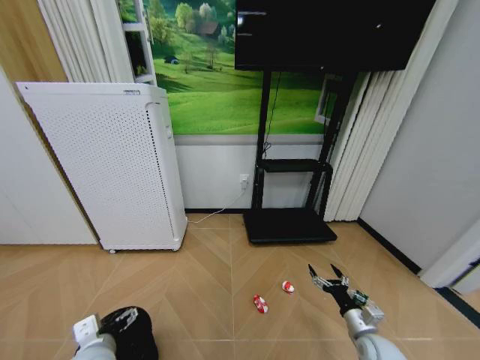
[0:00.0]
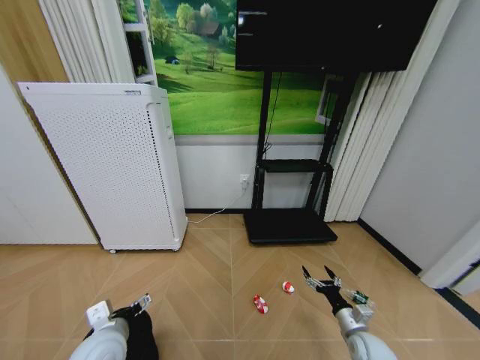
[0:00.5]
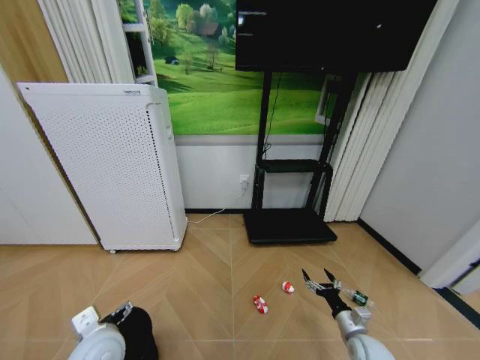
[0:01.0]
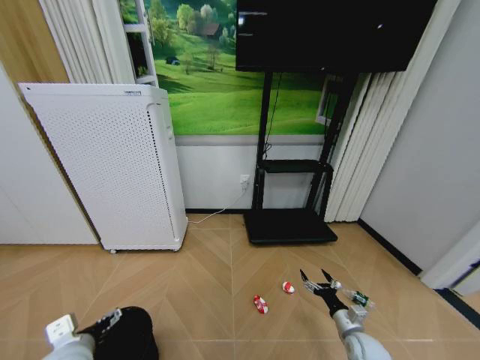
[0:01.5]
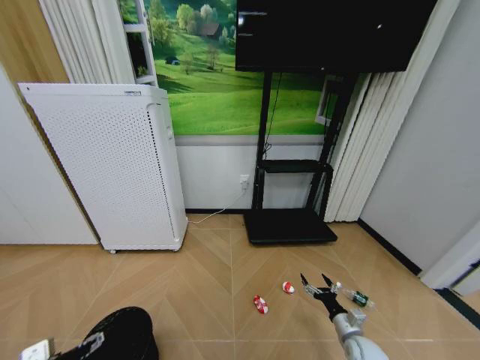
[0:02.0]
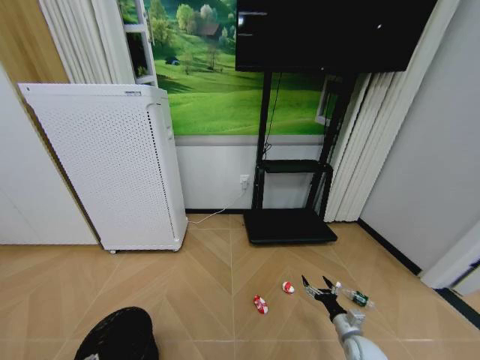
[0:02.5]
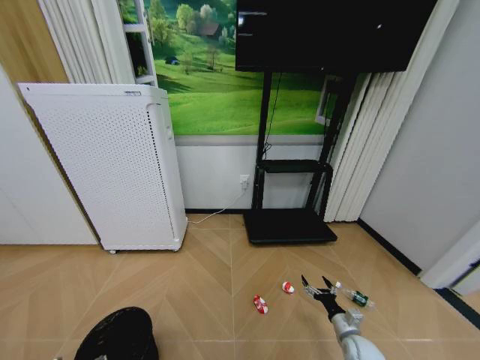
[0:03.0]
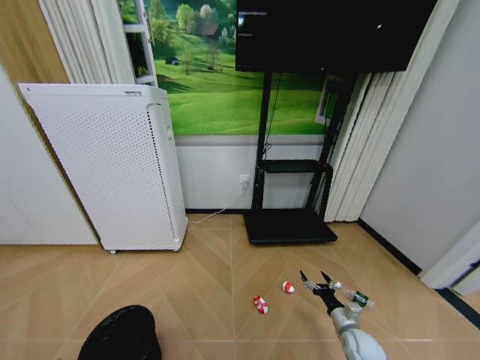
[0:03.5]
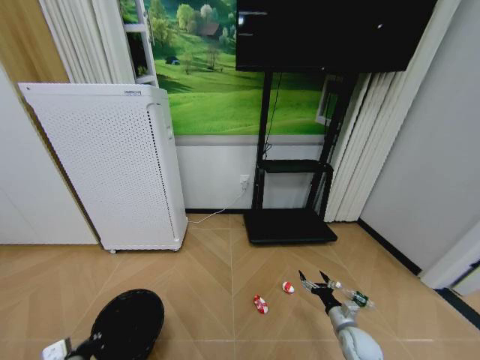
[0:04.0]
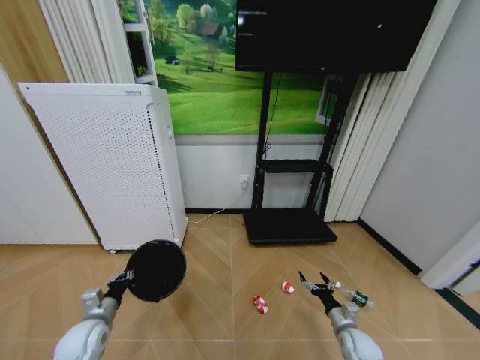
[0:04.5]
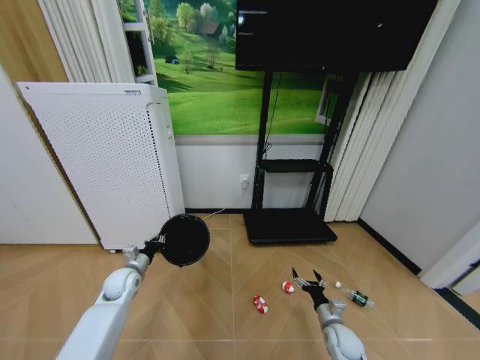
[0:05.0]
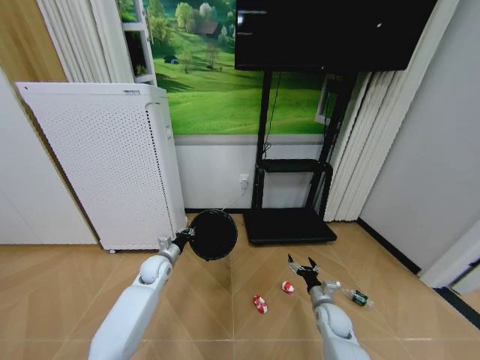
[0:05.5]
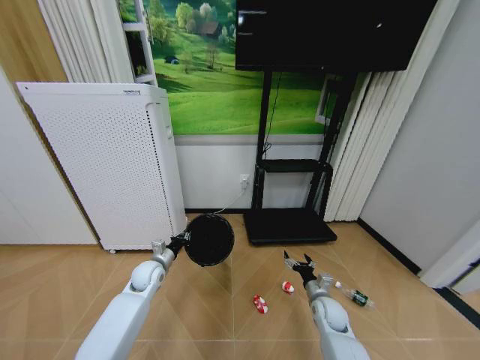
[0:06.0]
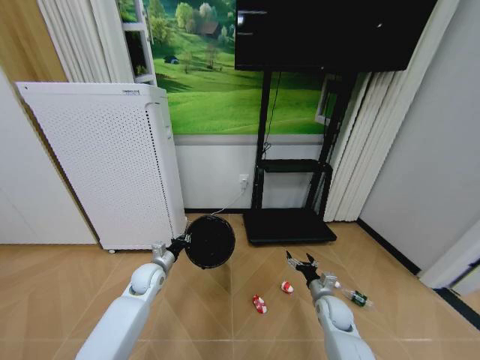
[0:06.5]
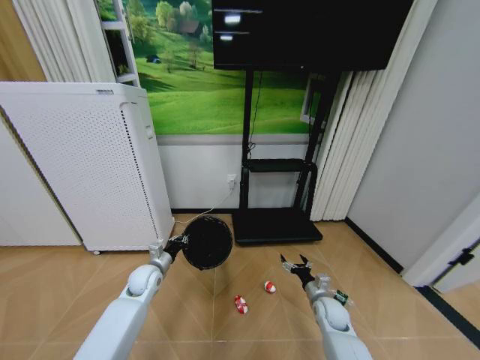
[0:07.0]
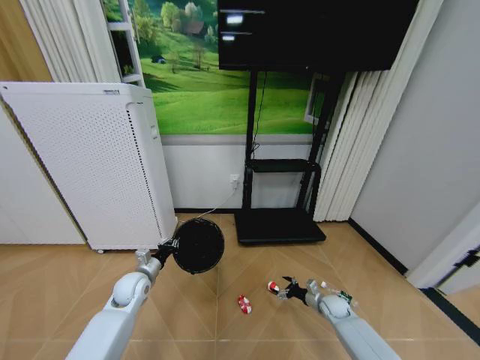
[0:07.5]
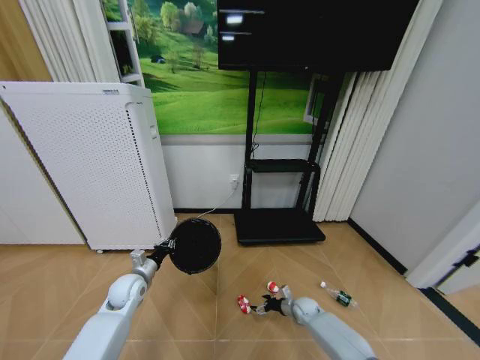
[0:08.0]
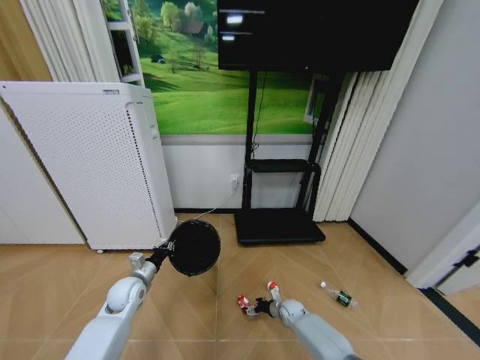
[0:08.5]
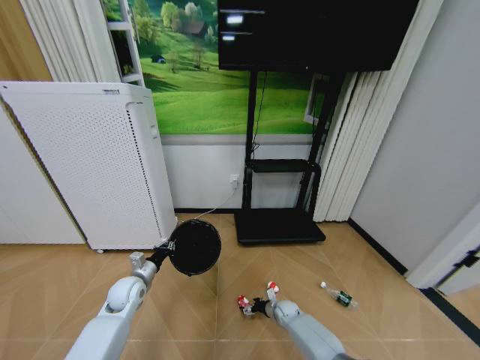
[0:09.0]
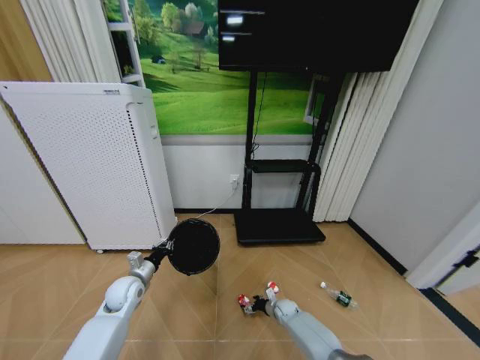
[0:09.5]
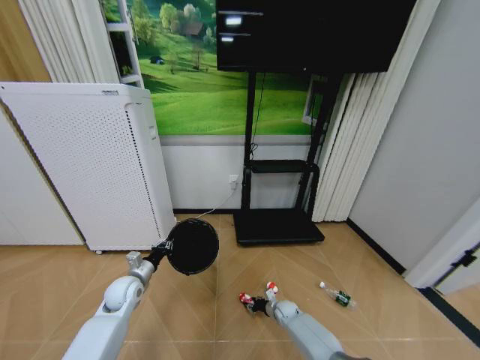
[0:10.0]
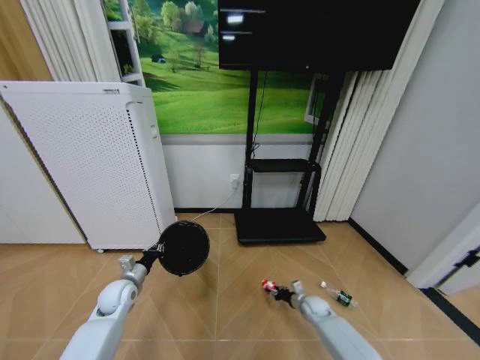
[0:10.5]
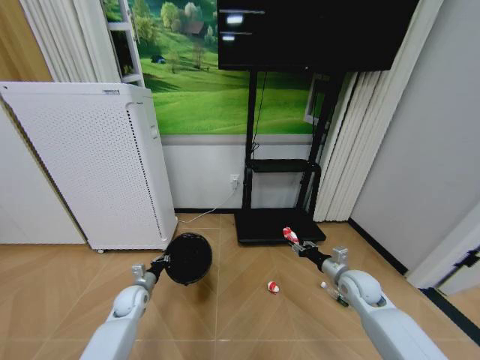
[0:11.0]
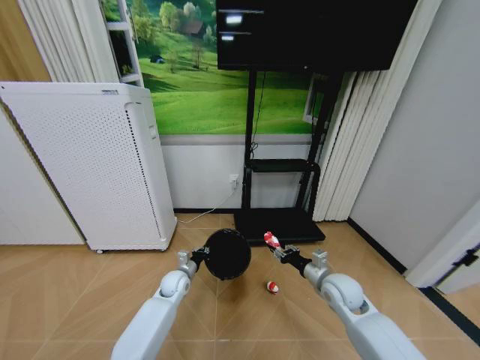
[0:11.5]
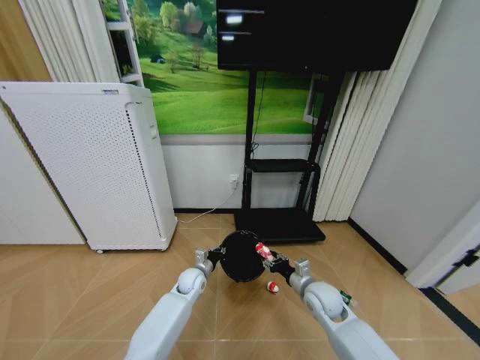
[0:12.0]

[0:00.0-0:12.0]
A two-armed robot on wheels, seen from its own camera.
Task of the whole recording: Pick up the trash bin and place the garbage on the floor into it.
0.0 to 2.0 s: The left gripper moves to the left, approximately 10 cm. Meanwhile the right gripper is displaced downward by some 5 cm.
2.0 to 4.0 s: The left gripper shifts about 5 cm downward, and closes its fingers.
4.0 to 6.0 s: The right gripper moves to the left and forward, roughly 10 cm. The left gripper travels forward by approximately 25 cm.
6.0 to 8.0 s: The left gripper changes place by about 5 cm; the right gripper is displaced downward and forward by roughly 15 cm.
8.0 to 10.0 s: The right gripper is displaced to the left by roughly 10 cm, and closes up.
10.0 to 12.0 s: The right gripper moves upward, approximately 25 cm; the left gripper heads to the right, covering some 20 cm.

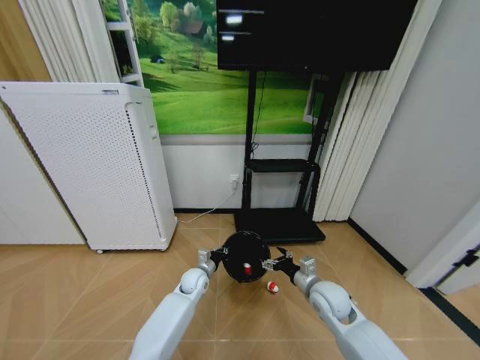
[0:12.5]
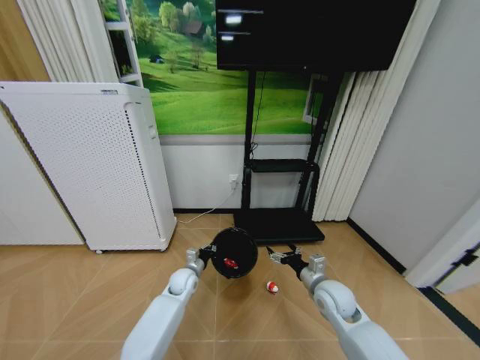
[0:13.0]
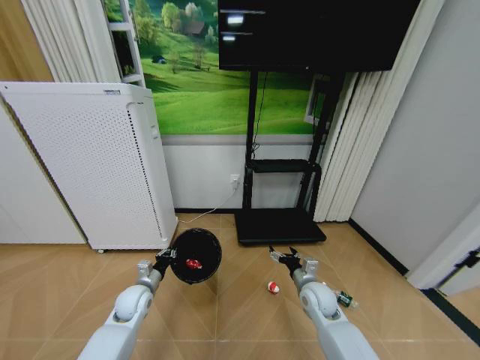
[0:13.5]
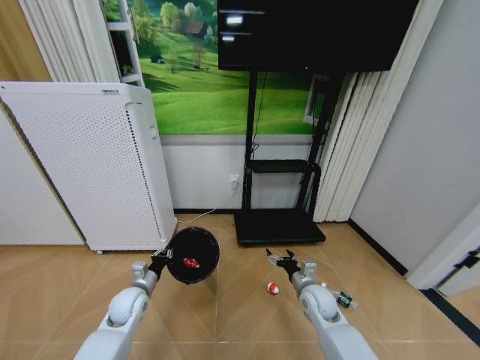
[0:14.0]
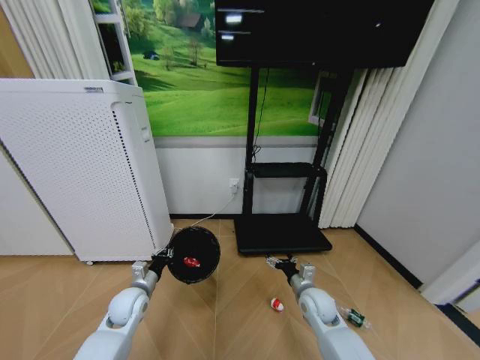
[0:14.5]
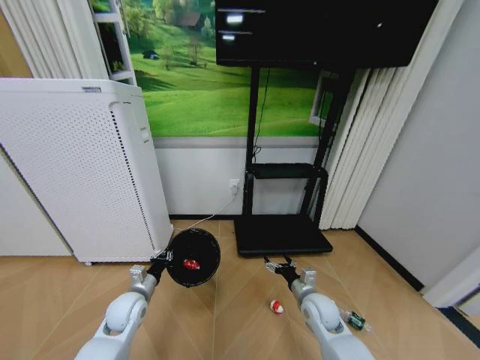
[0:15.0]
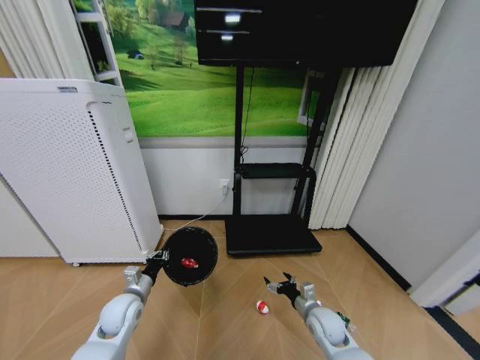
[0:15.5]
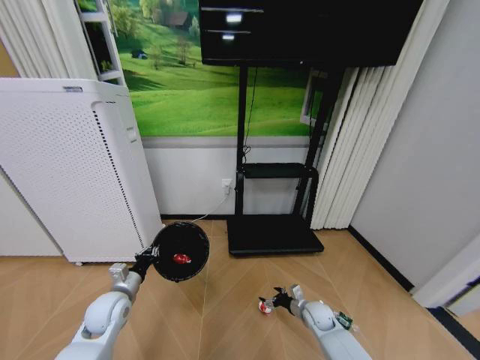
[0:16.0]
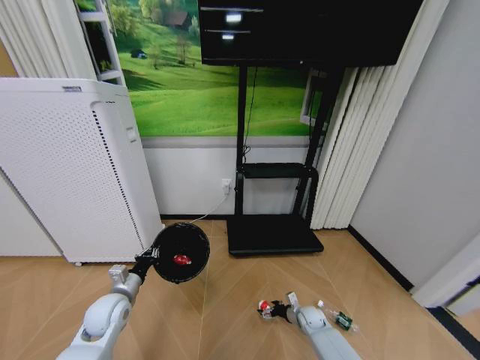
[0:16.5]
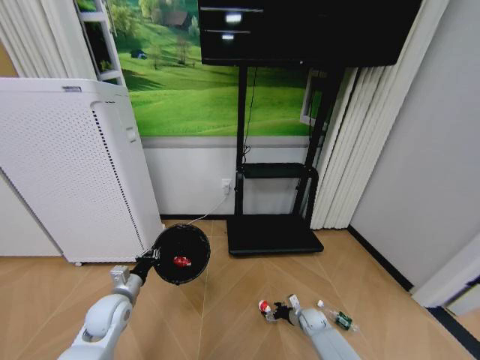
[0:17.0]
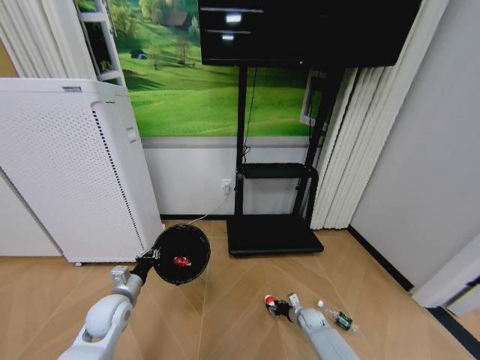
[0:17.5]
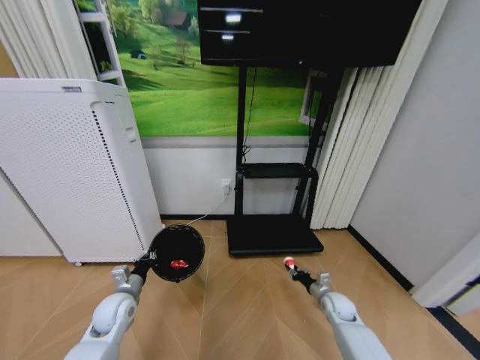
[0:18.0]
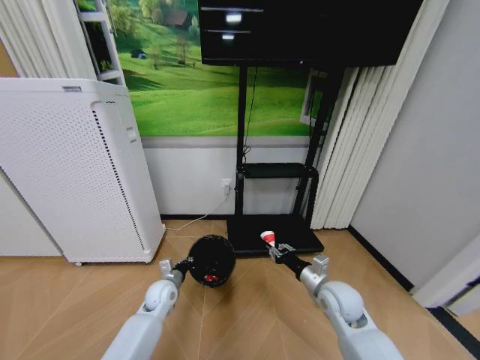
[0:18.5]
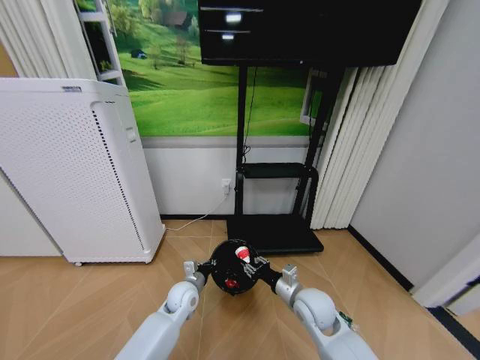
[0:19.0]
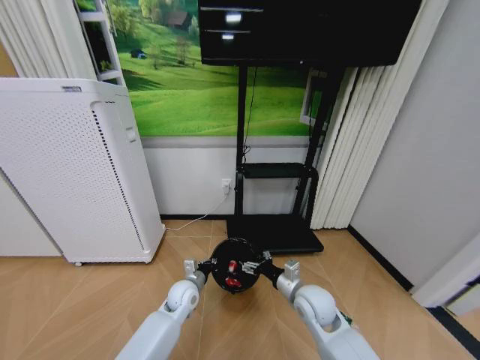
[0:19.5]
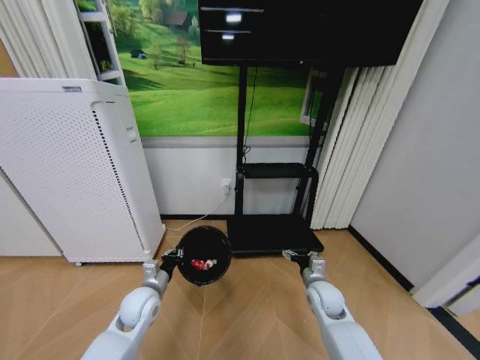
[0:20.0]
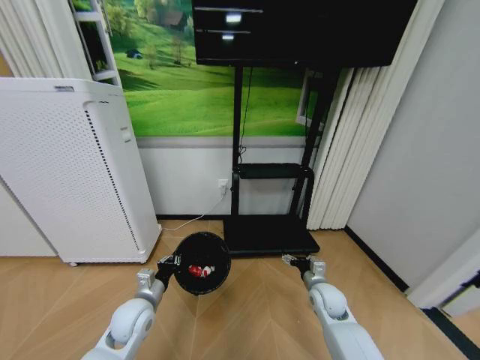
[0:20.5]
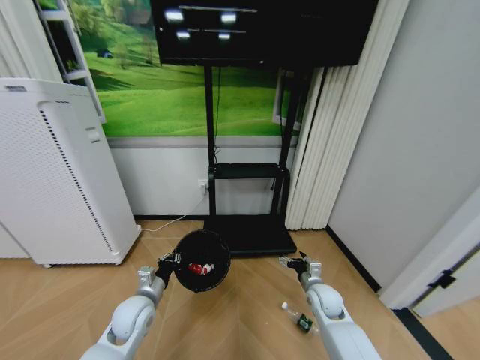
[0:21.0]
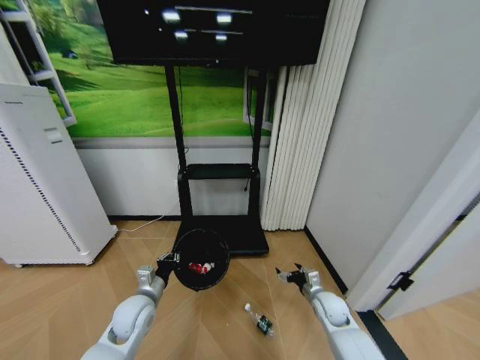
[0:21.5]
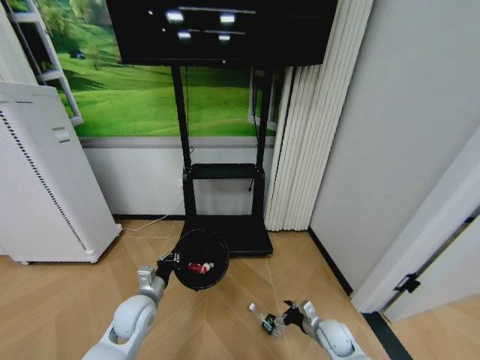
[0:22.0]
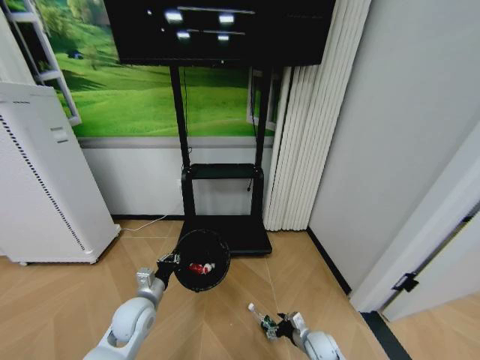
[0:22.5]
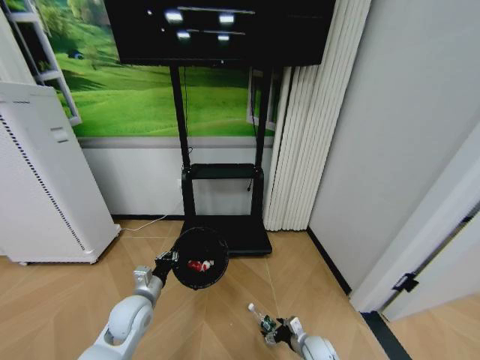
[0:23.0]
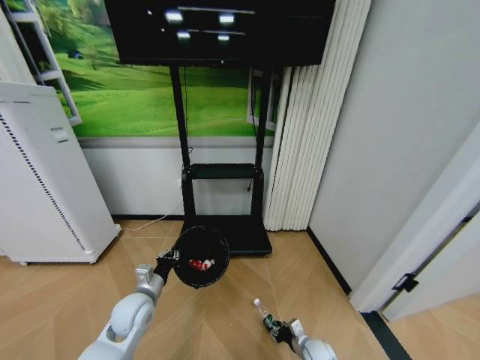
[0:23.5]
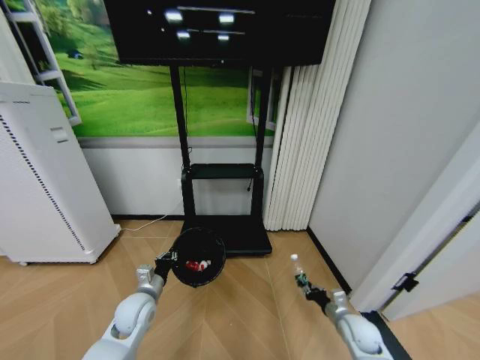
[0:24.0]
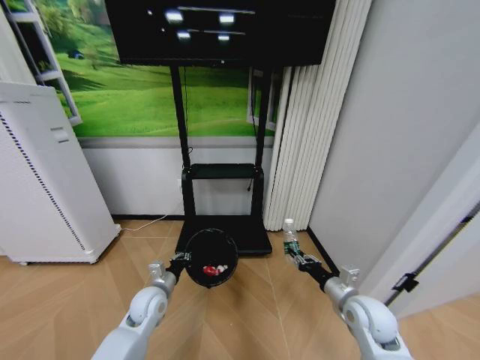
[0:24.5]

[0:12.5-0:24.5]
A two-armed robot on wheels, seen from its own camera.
Task of the whole recording: Pick up the trash bin and place the garbage on the floor into it.
12.5 to 14.5 s: The right gripper goes approximately 5 cm downward. The left gripper moves to the left and backward, about 20 cm.
14.5 to 16.5 s: The right gripper shifts some 20 cm downward. The left gripper shifts by about 5 cm.
16.5 to 18.5 s: The right gripper goes approximately 25 cm upward, and closes its fingers, while the left gripper travels to the right, forward and downward by approximately 15 cm.
18.5 to 20.5 s: The right gripper travels downward by roughly 10 cm, reaches about 5 cm to the left, then returns, and opens. Meanwhile the left gripper moves backward and upward, about 10 cm, and moves about 5 cm to the right and comes back.
20.5 to 22.5 s: The right gripper is displaced downward and backward by roughly 20 cm.
22.5 to 24.5 s: The right gripper shifts about 25 cm upward, and closes.

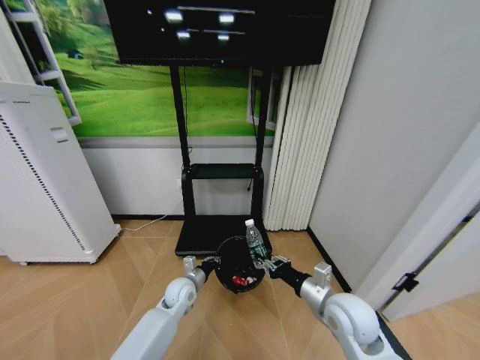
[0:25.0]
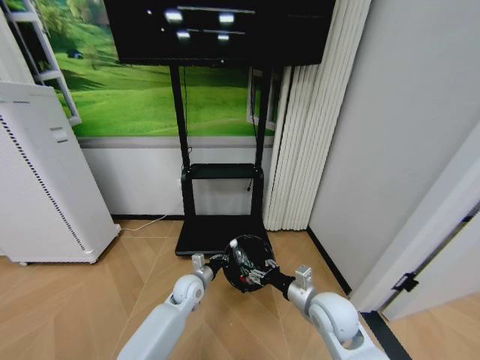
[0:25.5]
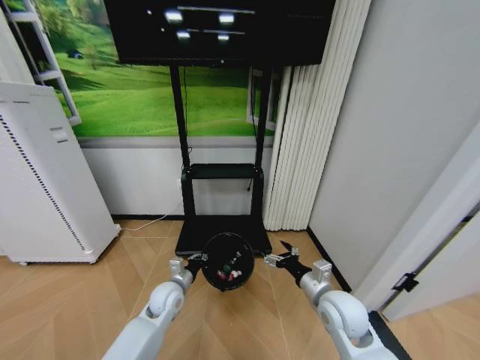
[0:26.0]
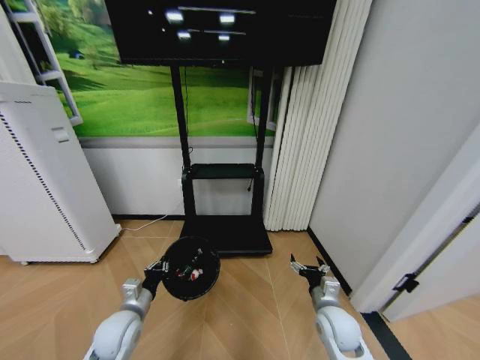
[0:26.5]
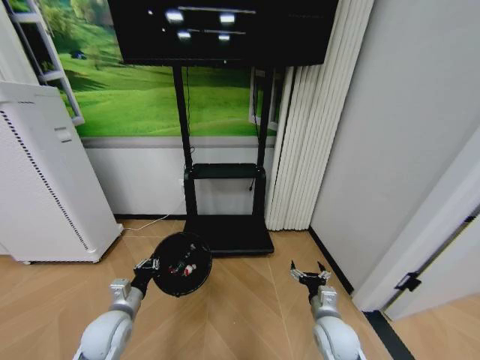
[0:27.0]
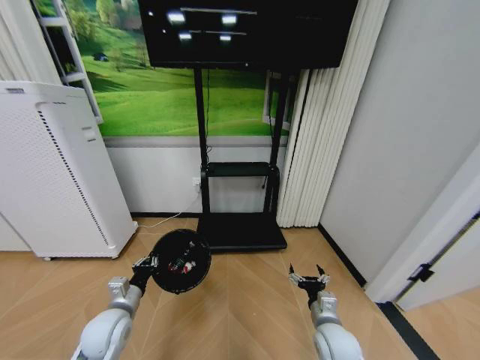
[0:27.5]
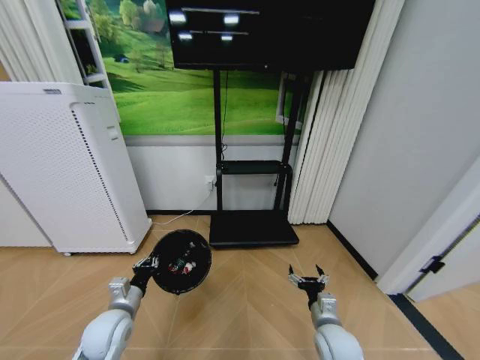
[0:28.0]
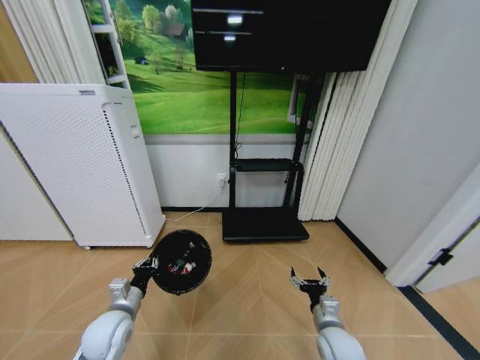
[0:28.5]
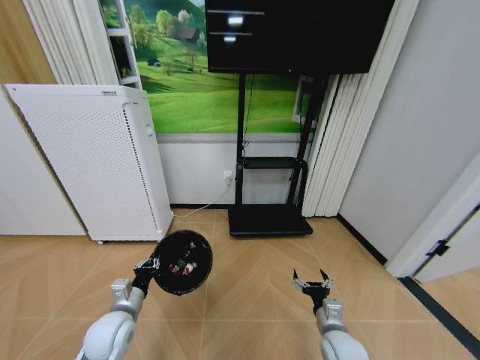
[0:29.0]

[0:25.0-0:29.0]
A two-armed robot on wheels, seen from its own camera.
Task of the whole recording: Pick up the trash bin and place the garbage on the floor into it.
25.0 to 27.0 s: The left gripper travels to the left, backward and upward by some 20 cm. Meanwhile the right gripper shifts some 10 cm downward, and opens.
